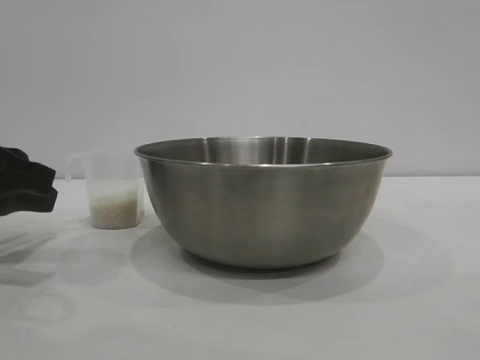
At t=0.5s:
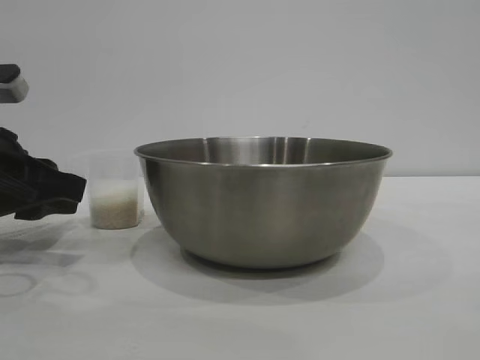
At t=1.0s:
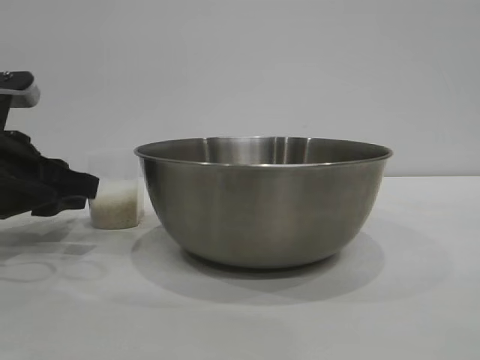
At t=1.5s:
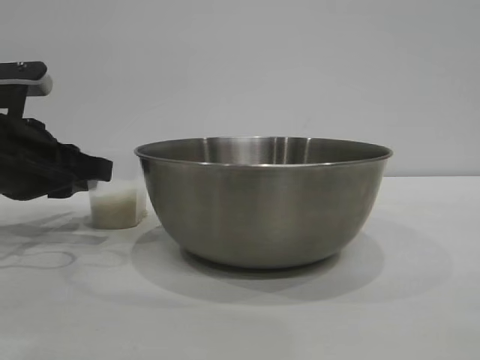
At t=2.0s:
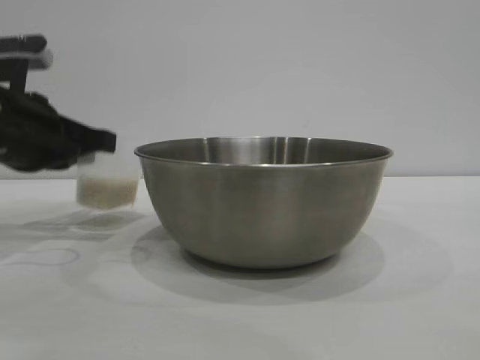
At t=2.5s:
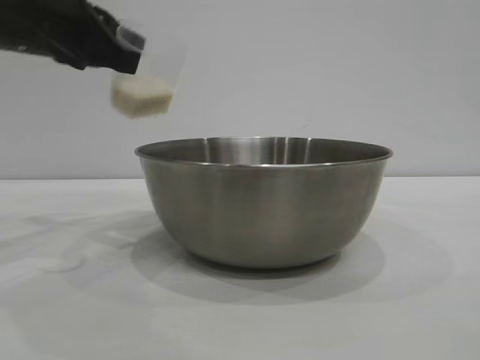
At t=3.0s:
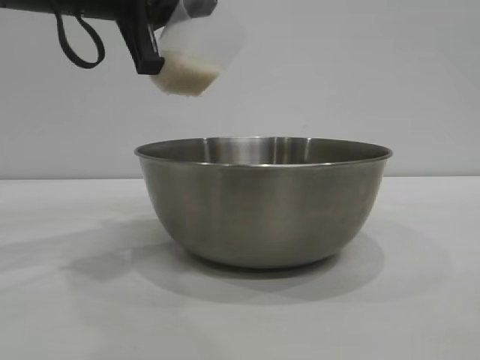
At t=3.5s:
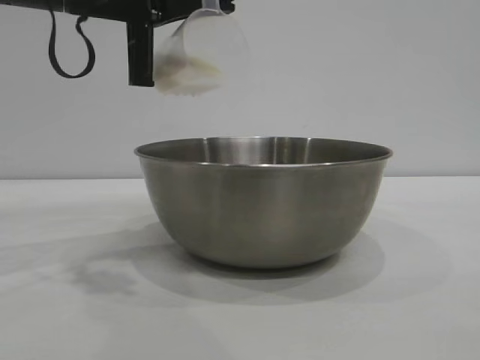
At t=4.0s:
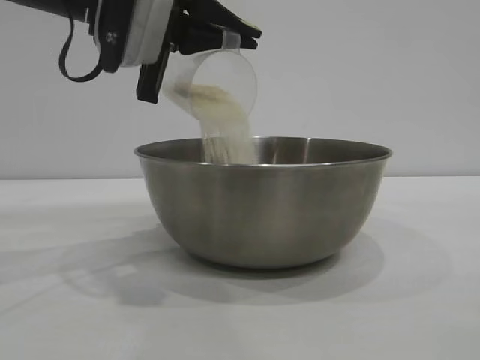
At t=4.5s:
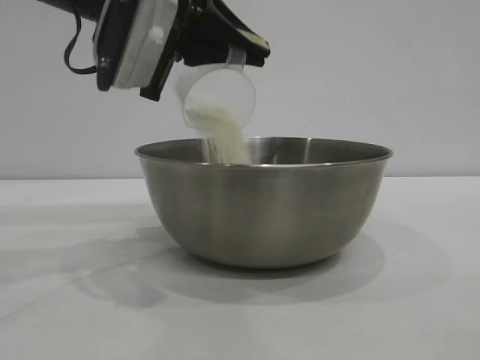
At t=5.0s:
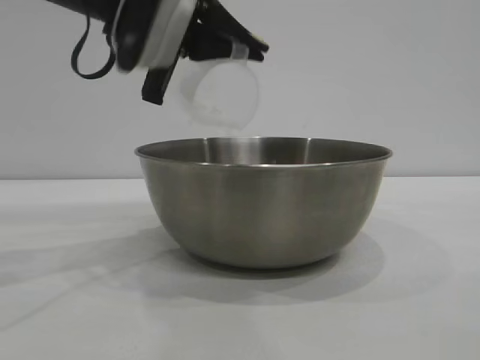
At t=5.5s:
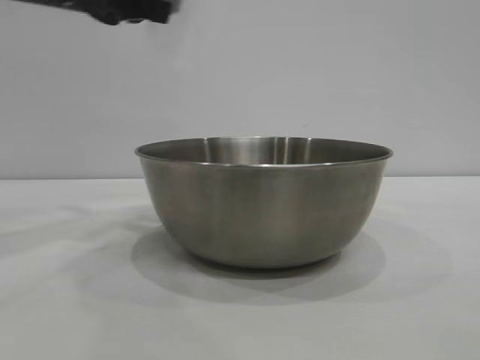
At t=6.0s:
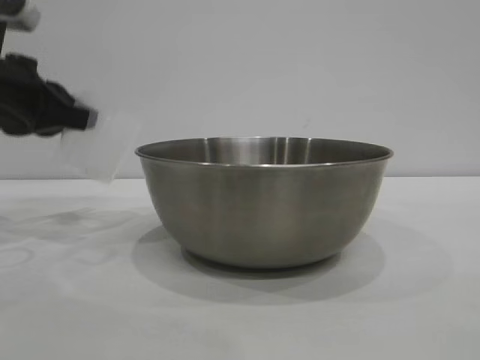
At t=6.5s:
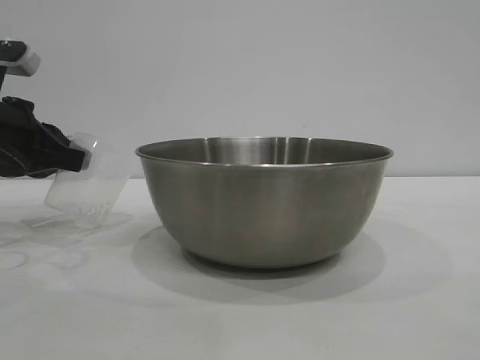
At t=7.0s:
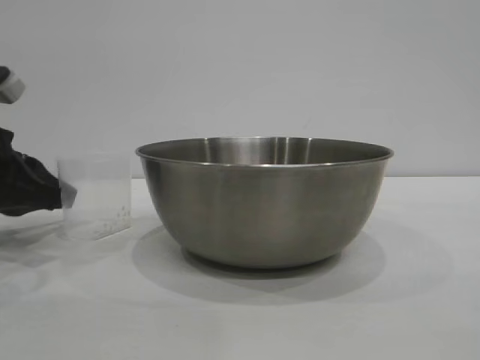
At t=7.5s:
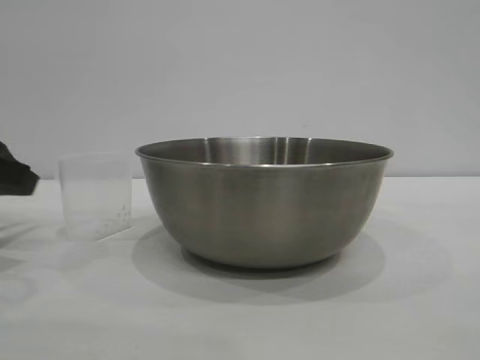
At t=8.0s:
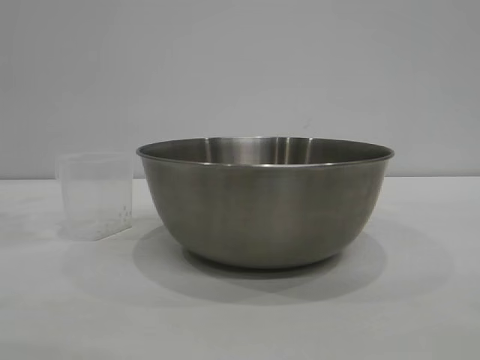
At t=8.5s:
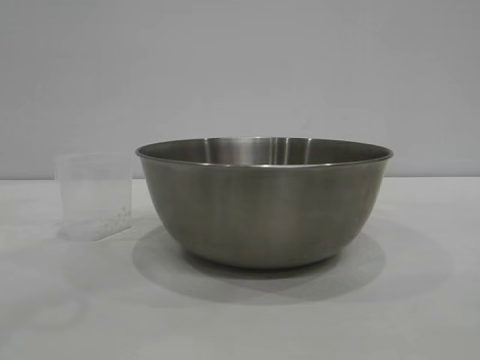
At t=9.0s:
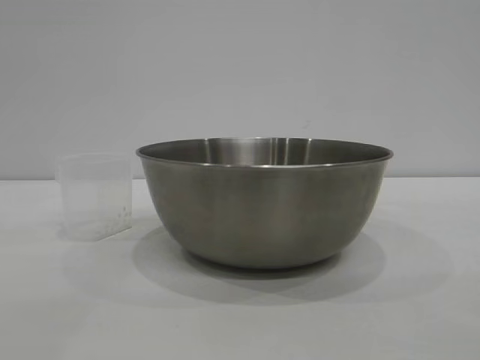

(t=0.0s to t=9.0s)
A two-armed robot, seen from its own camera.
Task of the whole recording: the right gripper grasp the rice container and place it in the center of the table, the left gripper grasp the rice scoop and pour the rice into the rice container.
Step, t=0.0s - t=2.0s: Pick up the cup with rice in it with the left gripper.
Step, t=2.5s - t=5.0s: Pour the rice from the cup into the bowl with the left gripper.
Step, t=5.5s - t=7.0s: Place the cup on the table with the left gripper.

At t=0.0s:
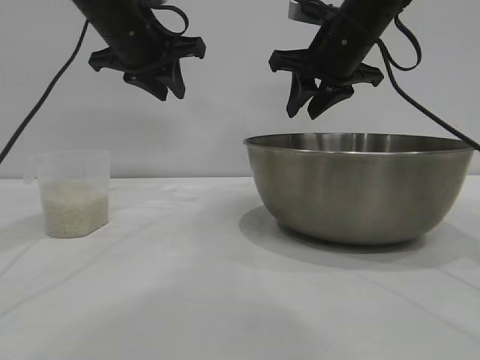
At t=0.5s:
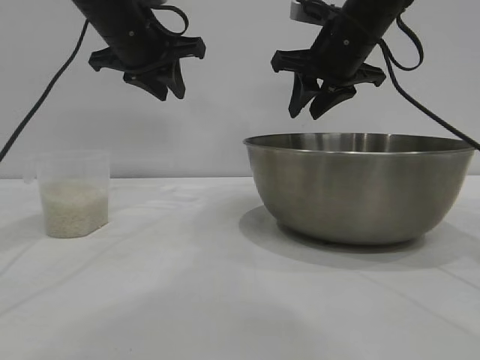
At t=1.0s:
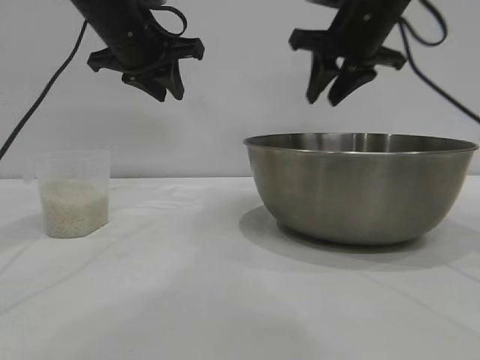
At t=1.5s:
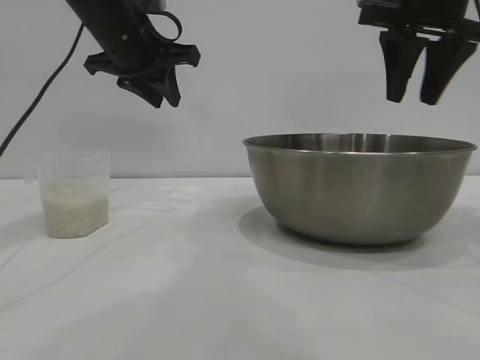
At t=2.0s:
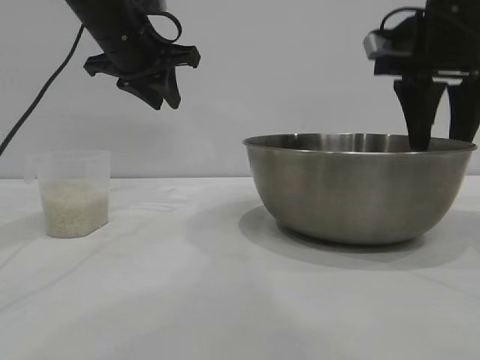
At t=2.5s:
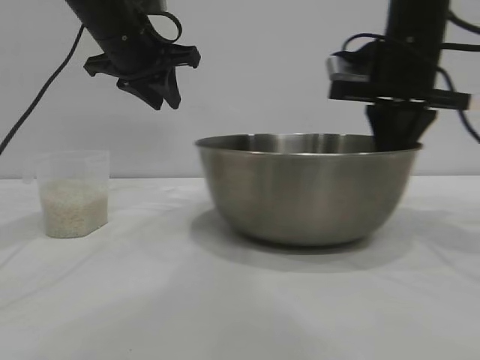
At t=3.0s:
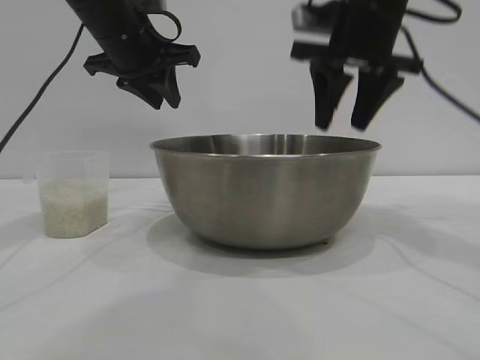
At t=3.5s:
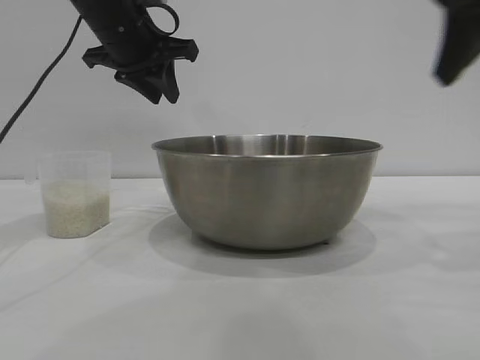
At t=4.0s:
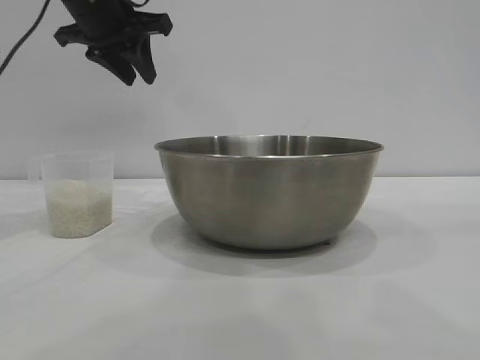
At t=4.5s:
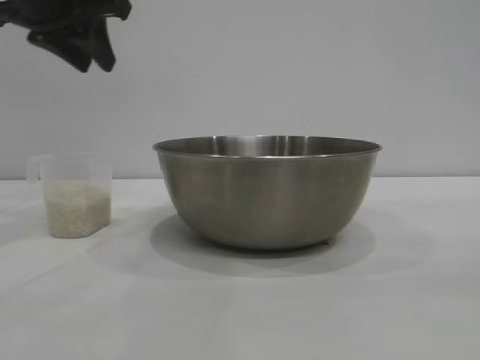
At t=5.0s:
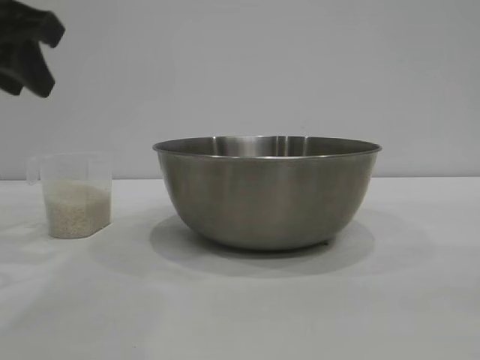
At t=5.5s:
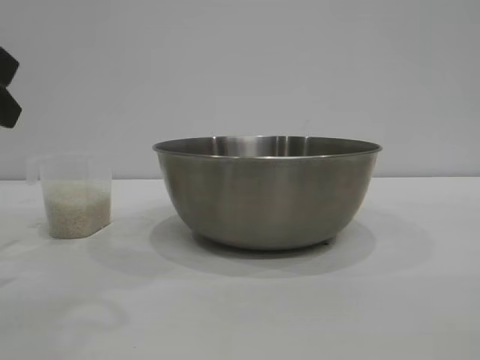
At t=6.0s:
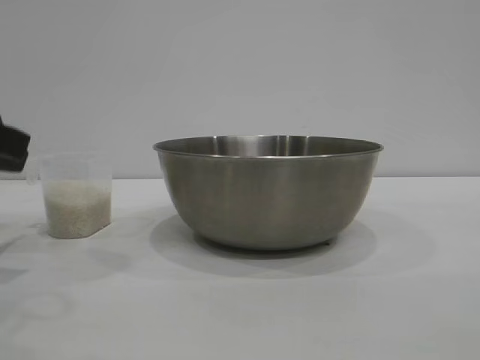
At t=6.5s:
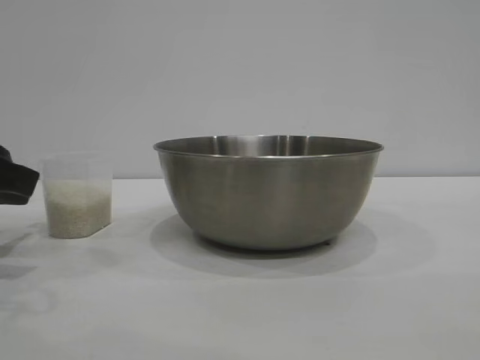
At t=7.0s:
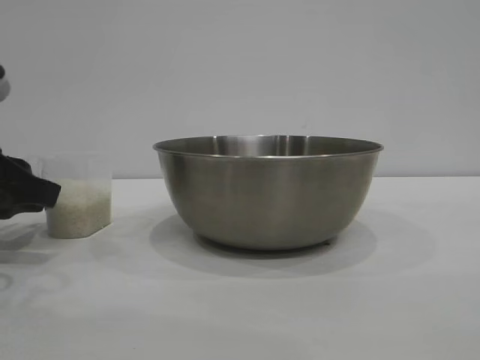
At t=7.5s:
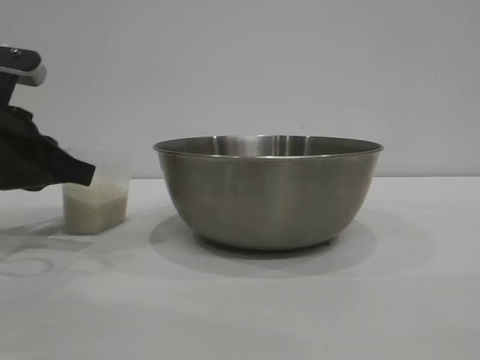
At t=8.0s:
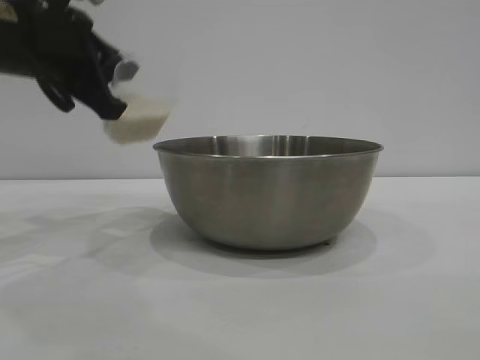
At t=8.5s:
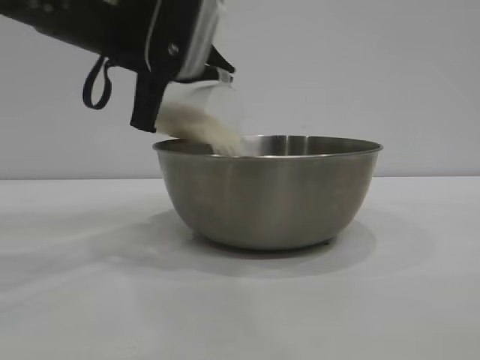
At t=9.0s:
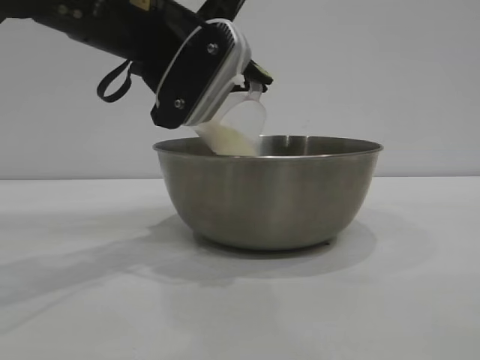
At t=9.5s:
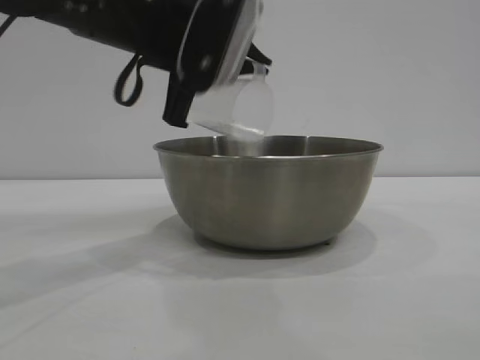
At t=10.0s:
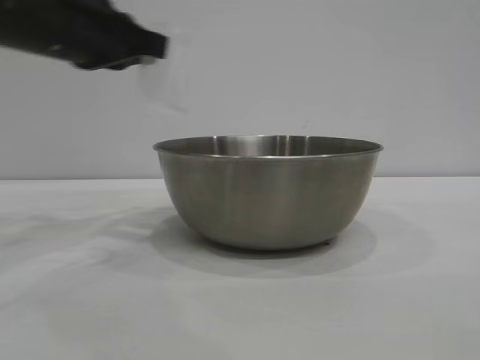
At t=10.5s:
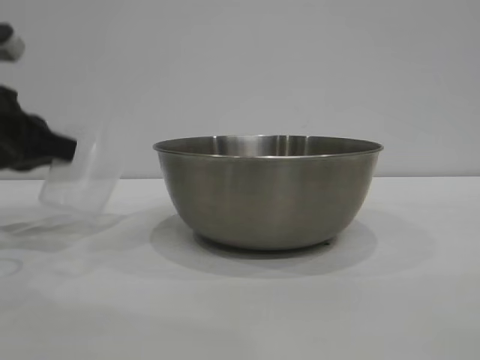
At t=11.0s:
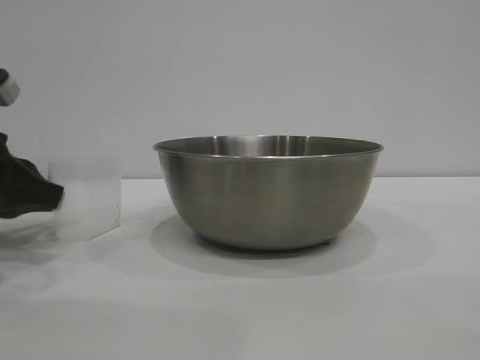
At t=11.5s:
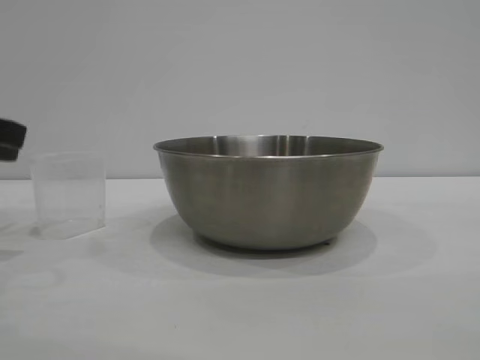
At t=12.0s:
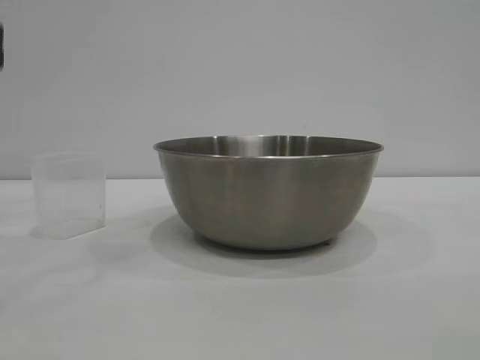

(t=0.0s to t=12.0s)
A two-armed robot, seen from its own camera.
Task of the whole recording: the right gripper grasp the rice container and place it in the center of the table, the left gripper grasp the rice scoop and pour the rice into the rice container.
Step, t=0.0s - t=3.0s: Move the bowl to the center of view with the right gripper.
Step, t=3.5s - t=7.5s: Pick up the cup with rice in it with the left gripper.
Step, t=8.0s - t=9.5s: Pour the rice from the cup into the bowl with the left gripper.
Step, t=10.0s - t=11.0s: Place the cup on the table with the left gripper.
